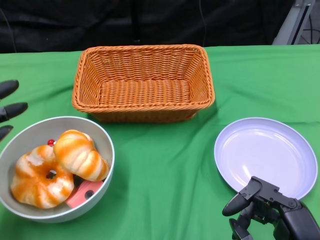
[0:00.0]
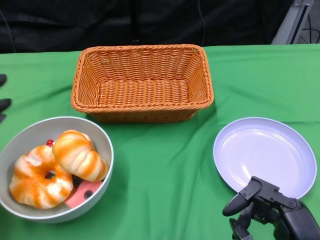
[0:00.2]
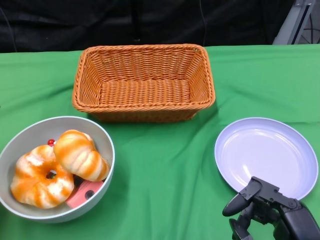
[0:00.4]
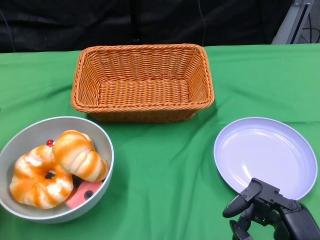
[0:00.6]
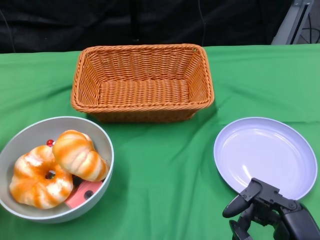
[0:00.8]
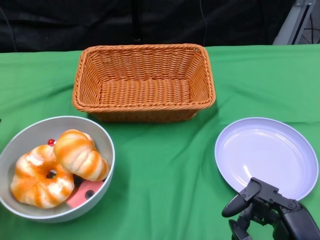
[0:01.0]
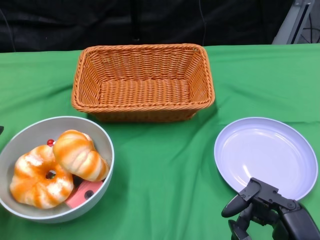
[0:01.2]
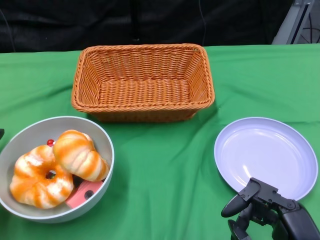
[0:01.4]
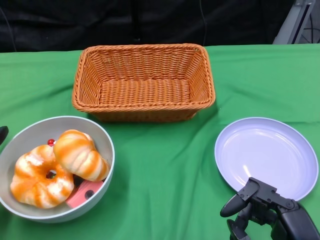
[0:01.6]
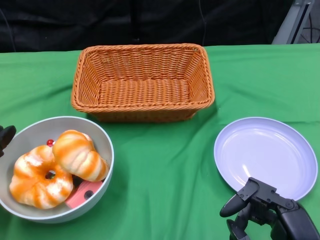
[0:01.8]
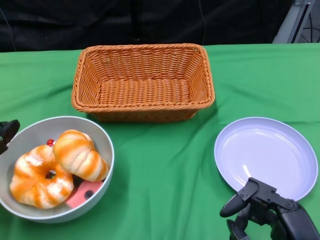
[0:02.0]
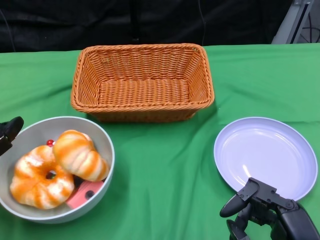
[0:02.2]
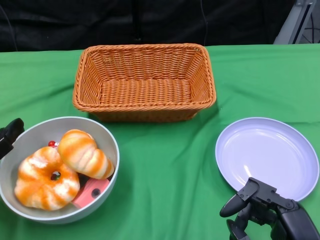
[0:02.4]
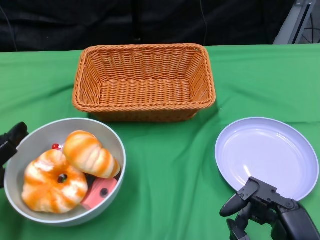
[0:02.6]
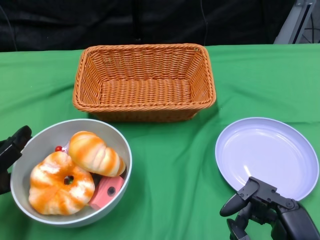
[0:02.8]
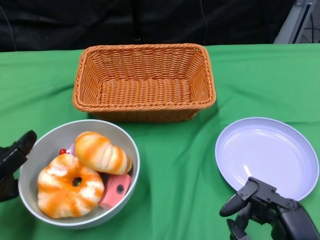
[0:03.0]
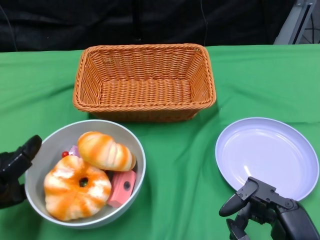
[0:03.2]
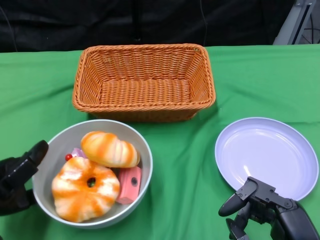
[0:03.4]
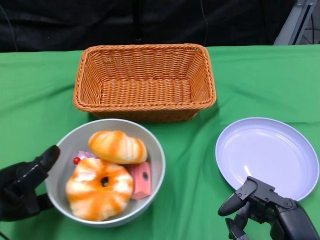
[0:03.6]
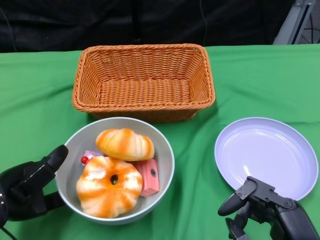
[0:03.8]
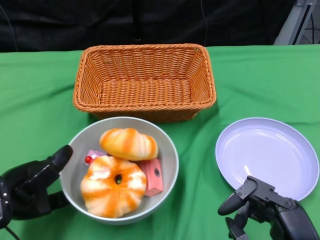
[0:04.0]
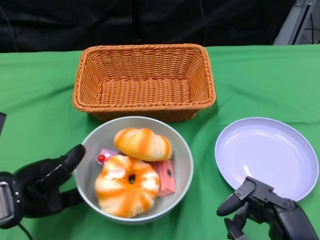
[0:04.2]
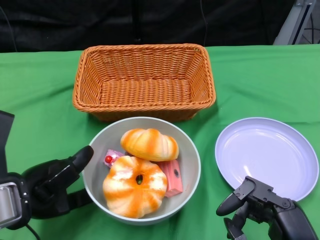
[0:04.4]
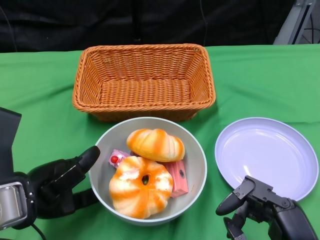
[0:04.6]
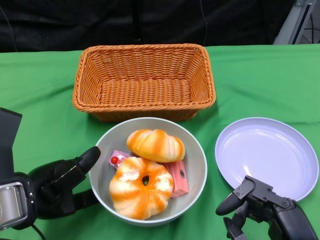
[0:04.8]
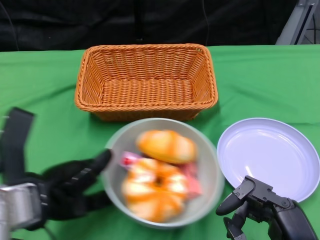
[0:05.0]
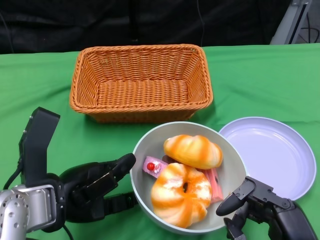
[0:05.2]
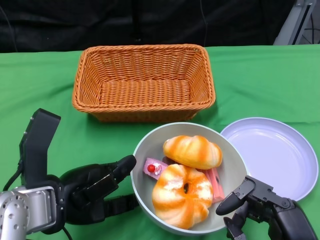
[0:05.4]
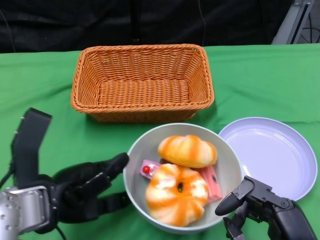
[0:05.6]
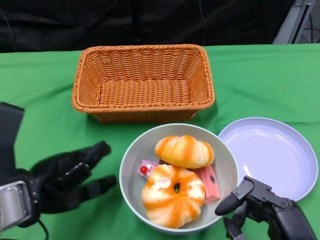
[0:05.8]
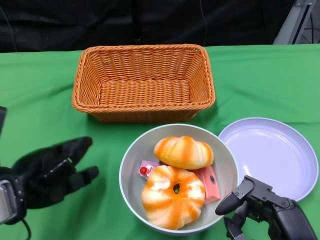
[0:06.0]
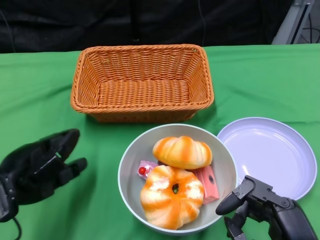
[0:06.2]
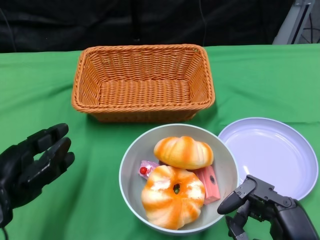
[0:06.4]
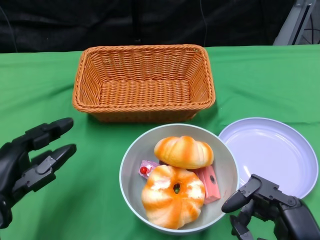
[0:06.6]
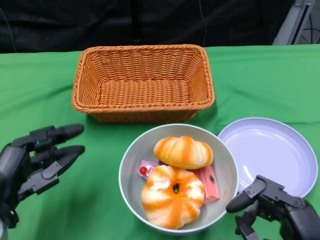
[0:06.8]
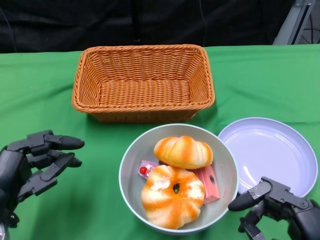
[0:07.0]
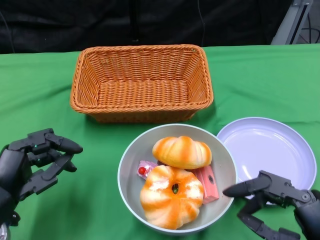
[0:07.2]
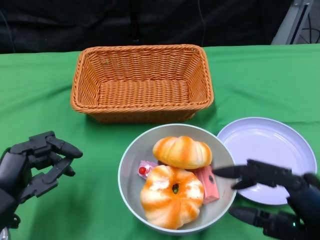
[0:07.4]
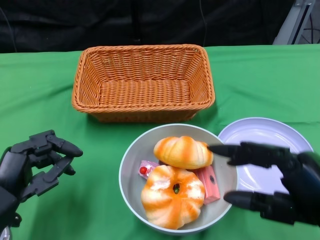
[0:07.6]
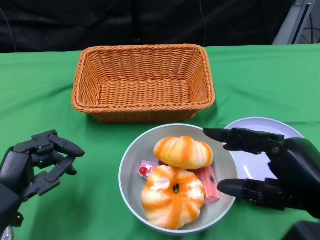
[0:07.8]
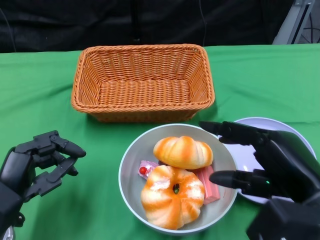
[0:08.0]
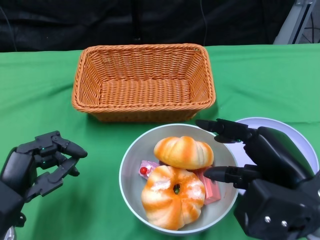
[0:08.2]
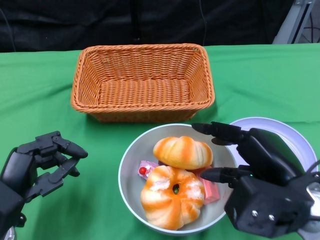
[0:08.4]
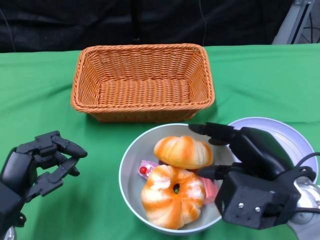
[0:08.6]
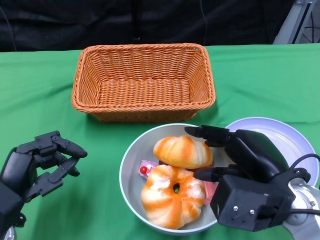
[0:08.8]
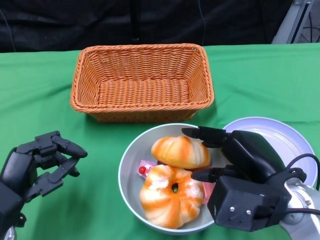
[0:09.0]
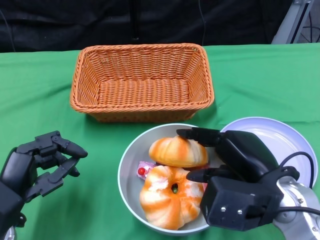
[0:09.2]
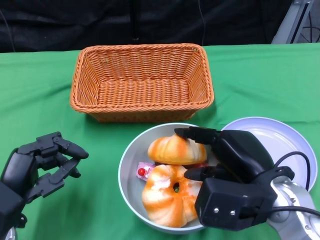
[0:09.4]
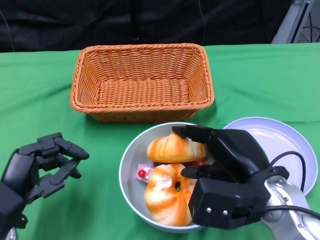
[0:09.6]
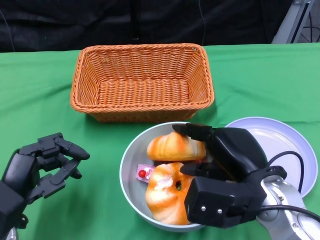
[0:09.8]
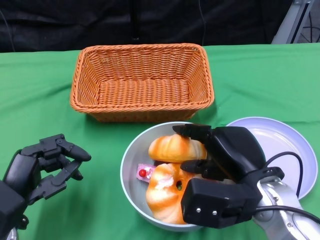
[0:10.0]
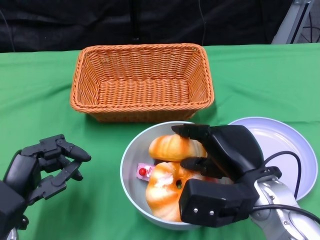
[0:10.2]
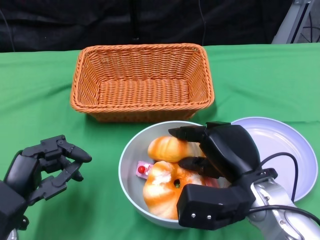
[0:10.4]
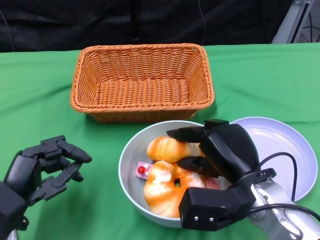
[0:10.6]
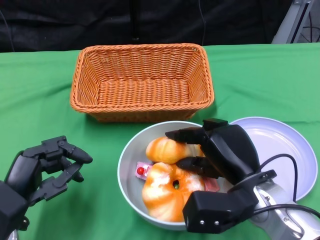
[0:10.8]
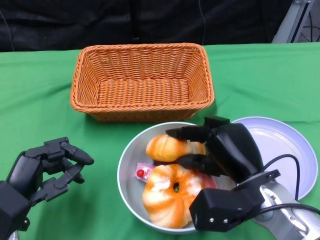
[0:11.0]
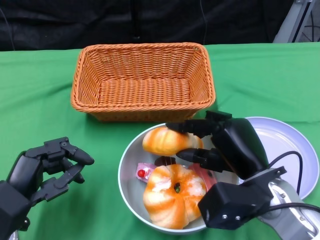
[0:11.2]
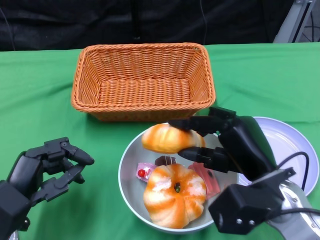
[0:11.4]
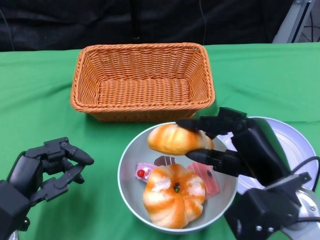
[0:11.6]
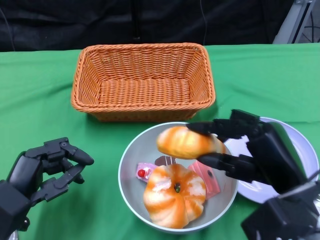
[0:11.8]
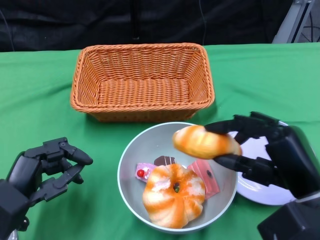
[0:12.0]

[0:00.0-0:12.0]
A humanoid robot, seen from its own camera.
Step, 0:00.0 to 0:05.2: Push the bowl to the center of the table using the left gripper.
0:00.0 to 0:01.6: The left hand travels forward by about 5 cm.
0:03.0 to 0:04.4: The left hand is displaced to the right by roughly 5 cm.
0:06.0 to 0:07.6: The left hand heads downward, covering some 5 cm, while the right hand is displaced upward by about 5 cm.
0:07.6 to 0:09.0: The right hand shifts roughly 10 cm forward and to the left.
0:10.4 to 0:12.0: The right hand travels to the right by about 5 cm.

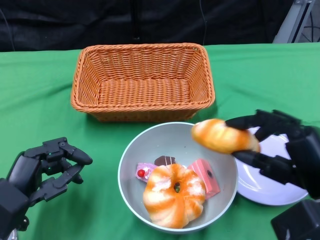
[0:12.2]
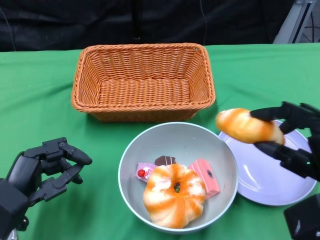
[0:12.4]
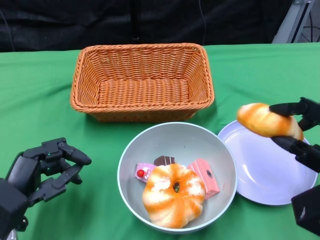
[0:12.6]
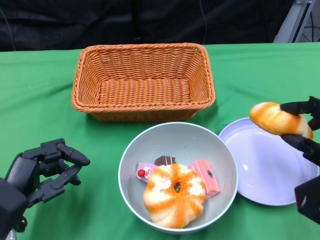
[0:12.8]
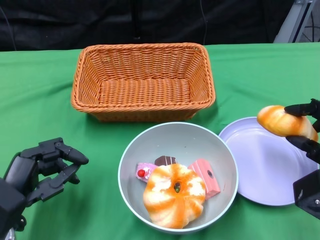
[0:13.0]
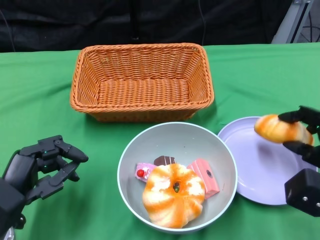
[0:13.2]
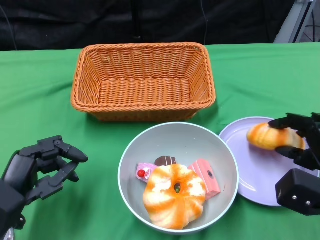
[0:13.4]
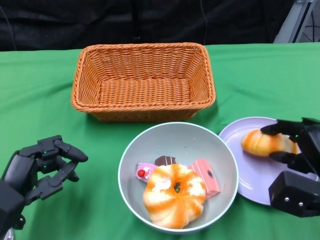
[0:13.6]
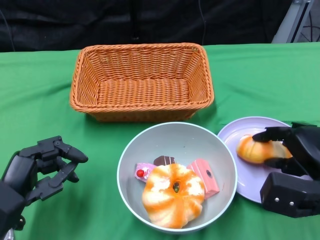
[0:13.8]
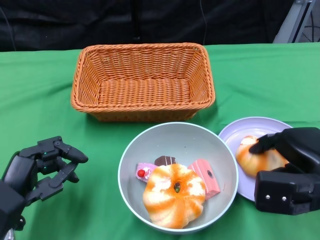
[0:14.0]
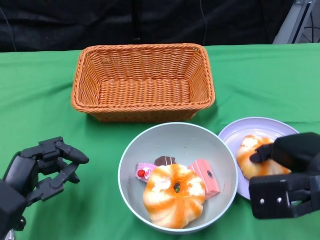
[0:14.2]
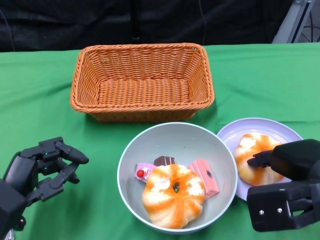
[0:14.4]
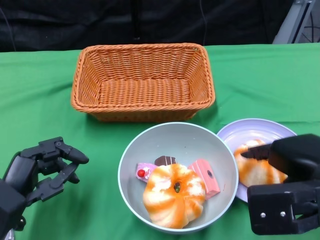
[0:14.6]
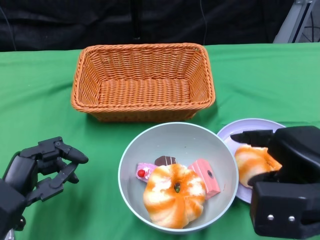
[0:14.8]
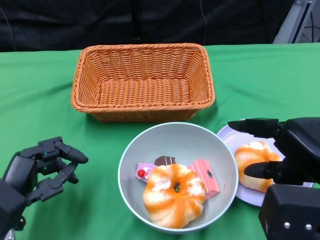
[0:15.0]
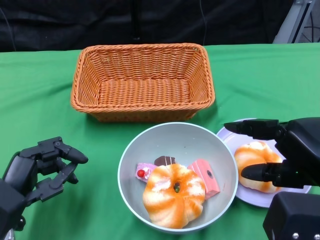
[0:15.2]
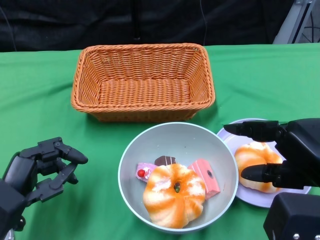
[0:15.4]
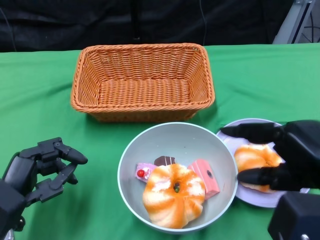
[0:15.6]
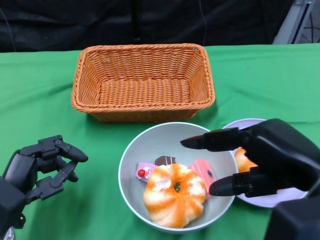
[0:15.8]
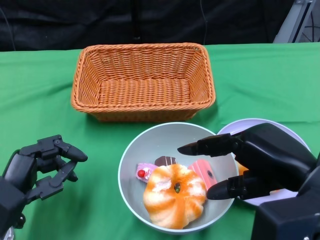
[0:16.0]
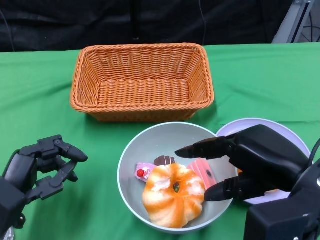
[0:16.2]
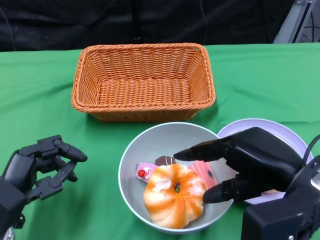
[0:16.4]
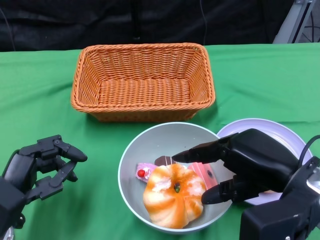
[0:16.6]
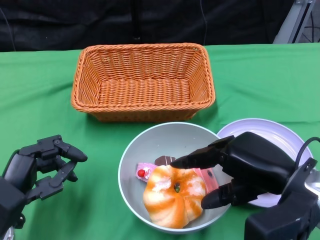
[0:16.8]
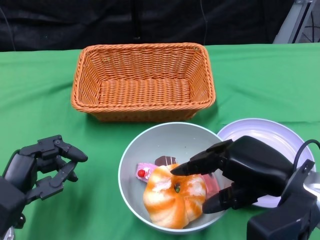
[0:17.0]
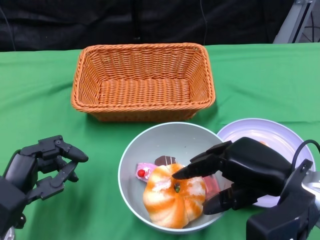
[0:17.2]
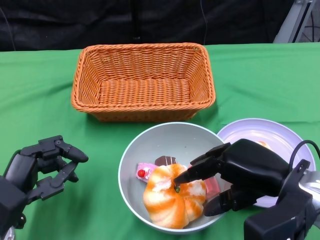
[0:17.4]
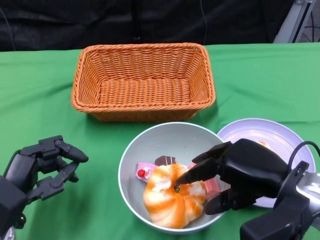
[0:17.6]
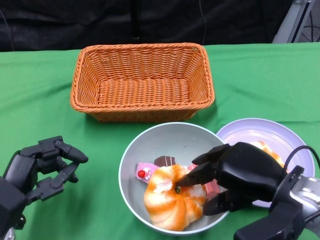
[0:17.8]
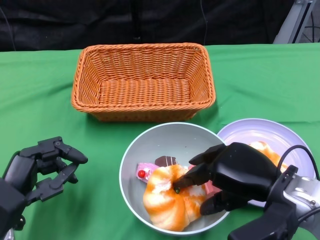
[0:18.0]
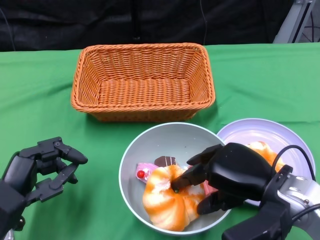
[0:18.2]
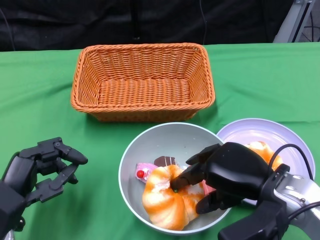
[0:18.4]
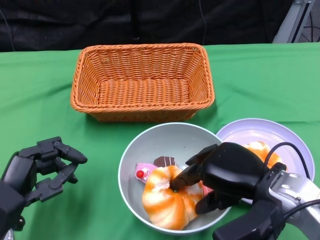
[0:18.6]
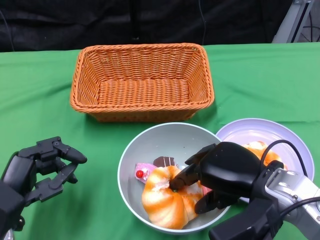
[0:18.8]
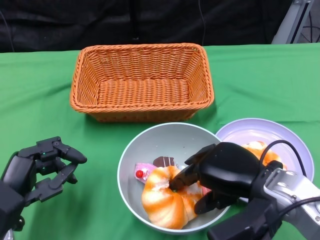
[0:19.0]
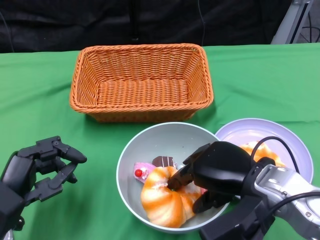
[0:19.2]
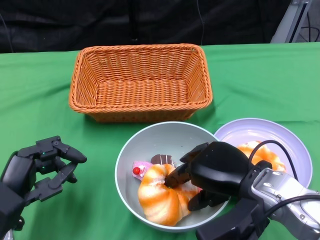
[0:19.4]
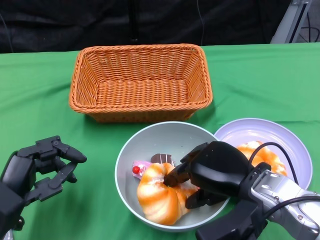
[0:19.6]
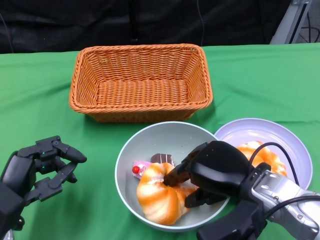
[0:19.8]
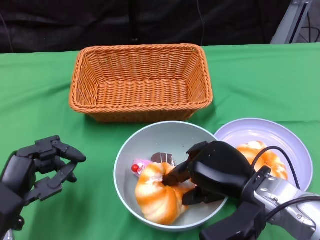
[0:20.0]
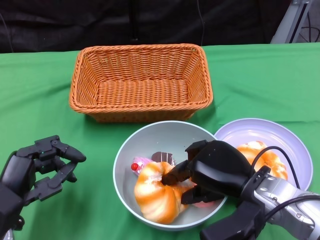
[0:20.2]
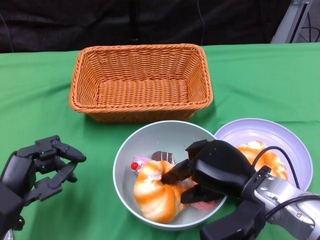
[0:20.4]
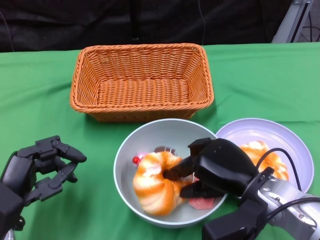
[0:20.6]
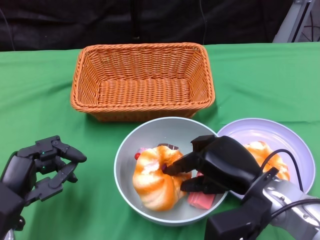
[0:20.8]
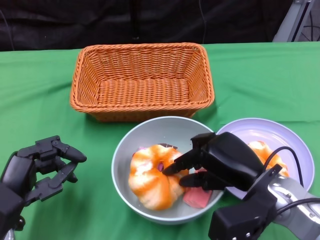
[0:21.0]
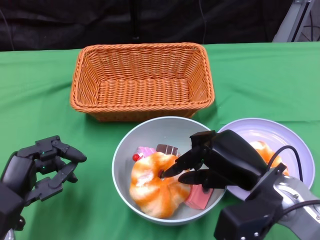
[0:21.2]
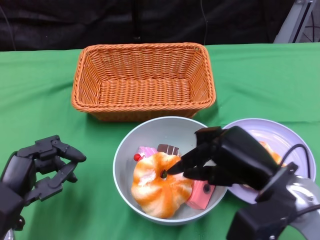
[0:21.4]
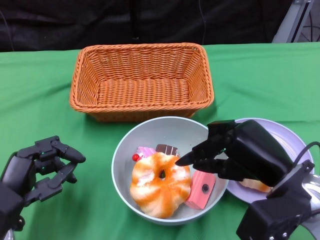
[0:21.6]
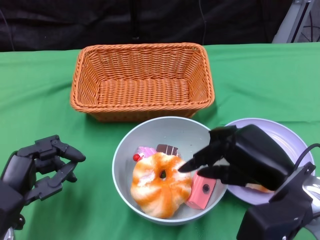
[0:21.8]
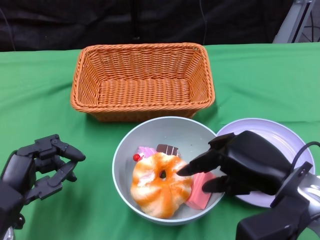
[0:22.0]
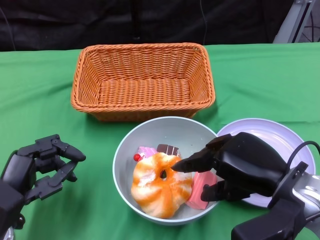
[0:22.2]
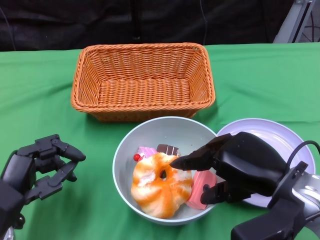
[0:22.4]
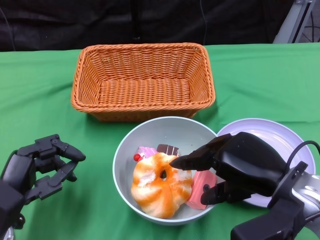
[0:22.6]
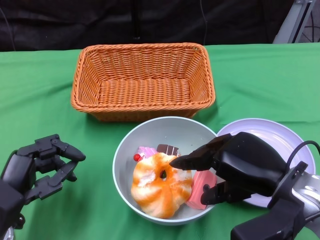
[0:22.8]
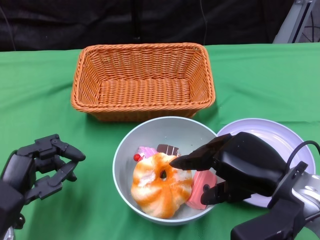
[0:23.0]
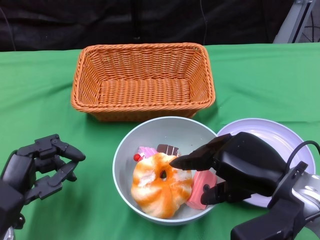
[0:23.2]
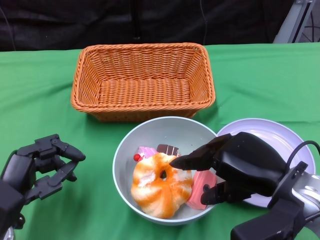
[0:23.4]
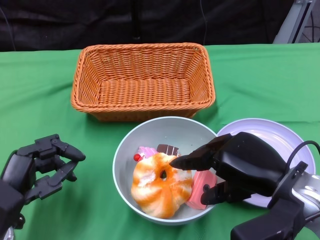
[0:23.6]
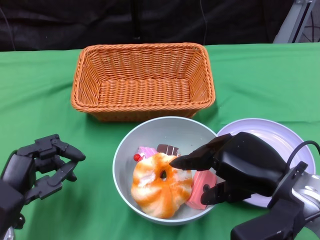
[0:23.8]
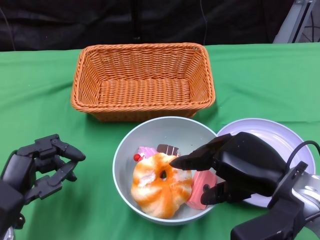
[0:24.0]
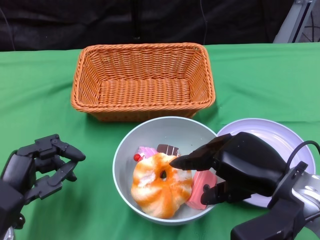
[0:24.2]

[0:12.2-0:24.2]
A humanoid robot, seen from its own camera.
0:12.2 to 0:13.8: The right hand heads forward and downward, covering about 10 cm.
0:13.8 to 0:15.2: The right hand is displaced upward and backward by approximately 15 cm.
0:15.2 to 0:16.6: The right hand ends up some 5 cm from where it was.
0:16.6 to 0:18.2: The right hand moves roughly 5 cm.
0:21.2 to 0:22.6: The hands stay close to where they were, moving slightly.
0:22.6 to 0:24.2: Neither hand changes place.
